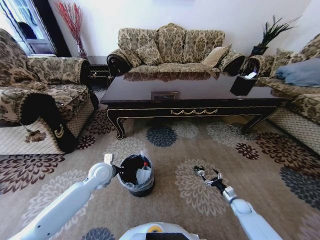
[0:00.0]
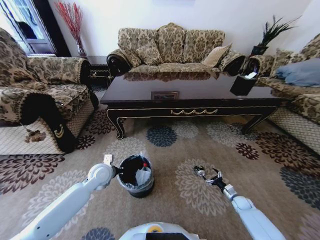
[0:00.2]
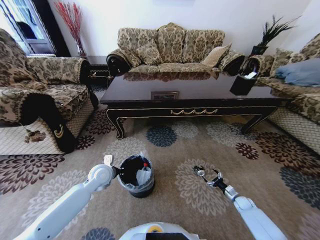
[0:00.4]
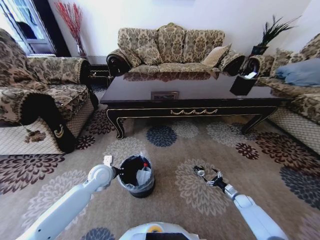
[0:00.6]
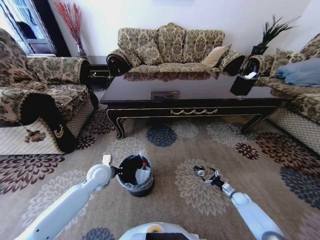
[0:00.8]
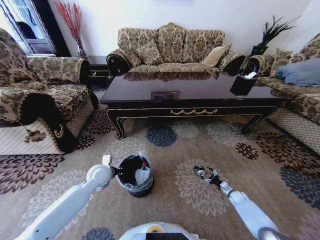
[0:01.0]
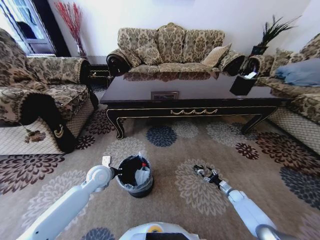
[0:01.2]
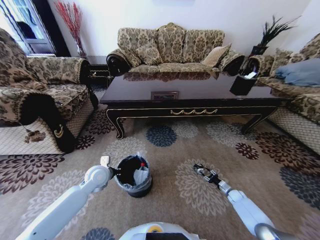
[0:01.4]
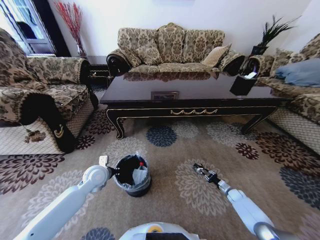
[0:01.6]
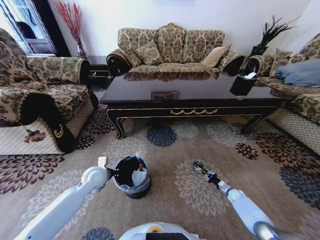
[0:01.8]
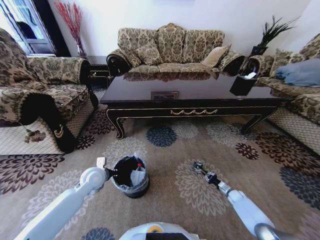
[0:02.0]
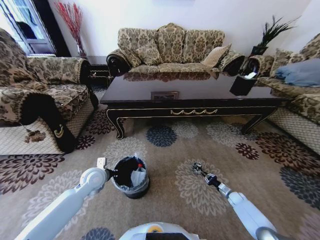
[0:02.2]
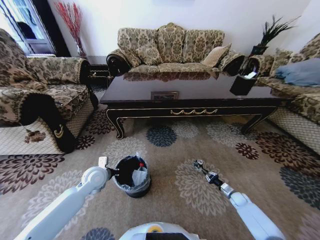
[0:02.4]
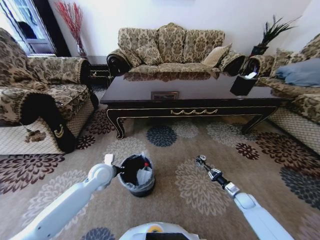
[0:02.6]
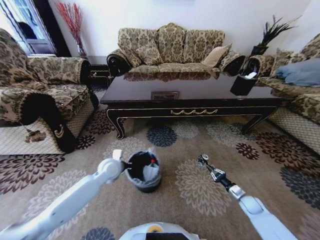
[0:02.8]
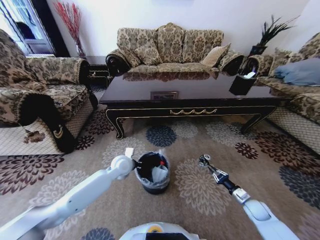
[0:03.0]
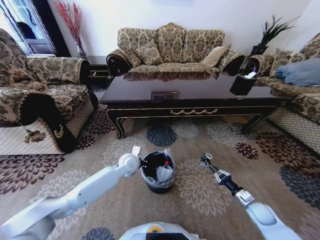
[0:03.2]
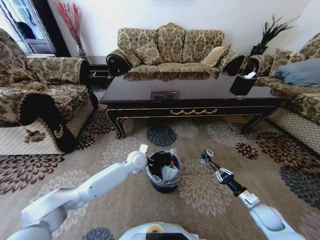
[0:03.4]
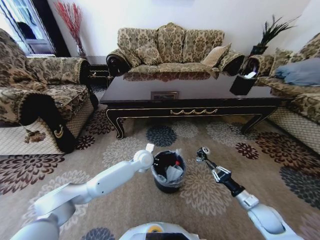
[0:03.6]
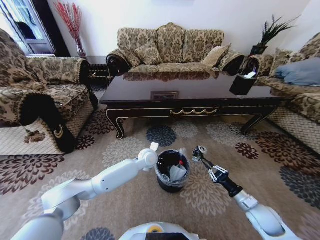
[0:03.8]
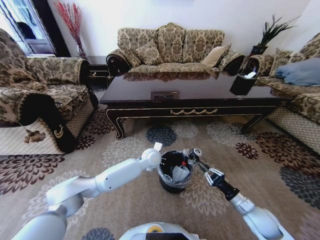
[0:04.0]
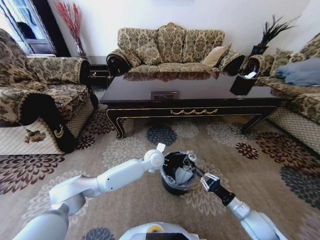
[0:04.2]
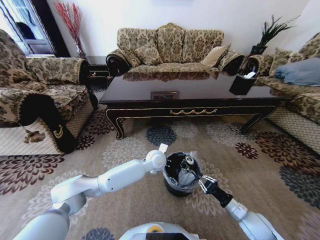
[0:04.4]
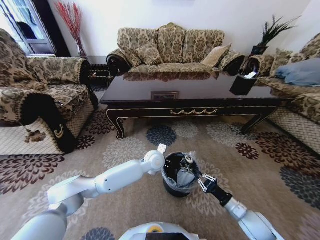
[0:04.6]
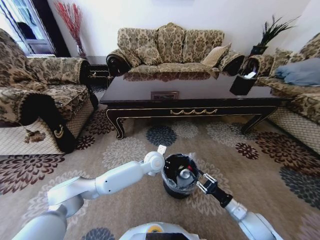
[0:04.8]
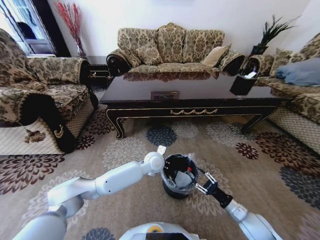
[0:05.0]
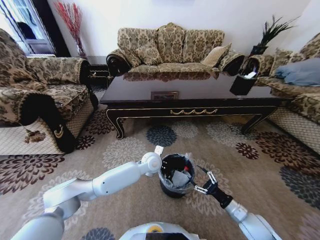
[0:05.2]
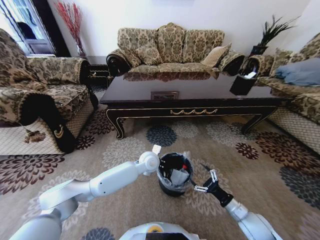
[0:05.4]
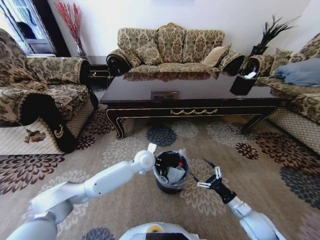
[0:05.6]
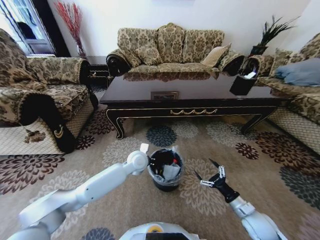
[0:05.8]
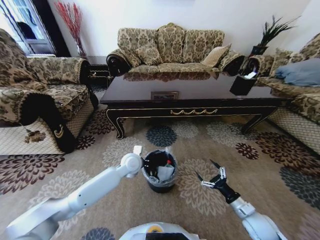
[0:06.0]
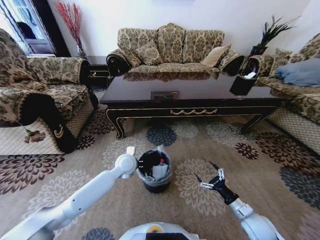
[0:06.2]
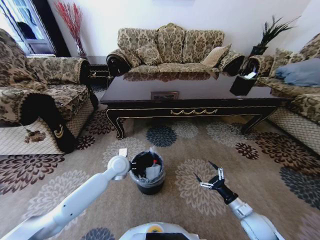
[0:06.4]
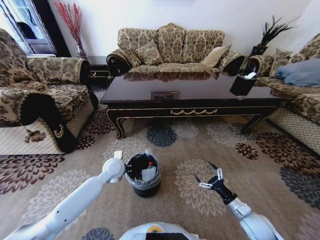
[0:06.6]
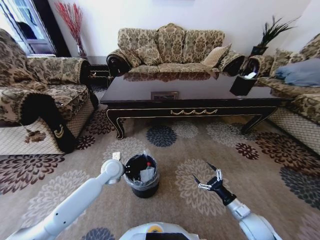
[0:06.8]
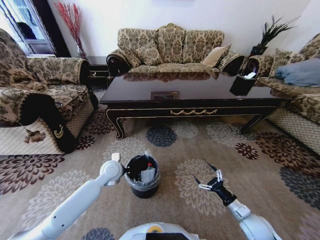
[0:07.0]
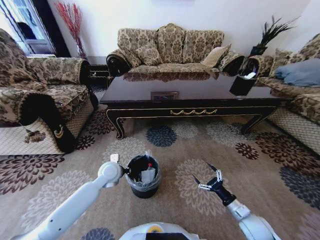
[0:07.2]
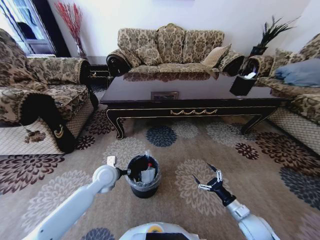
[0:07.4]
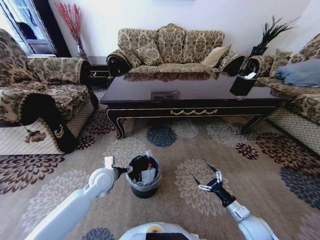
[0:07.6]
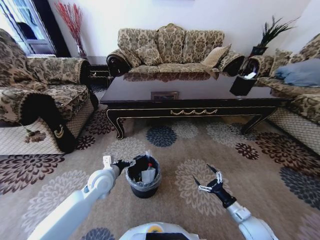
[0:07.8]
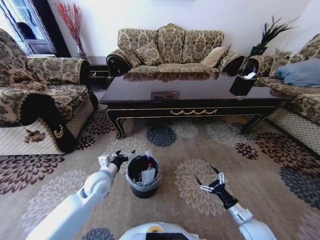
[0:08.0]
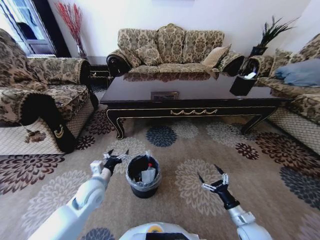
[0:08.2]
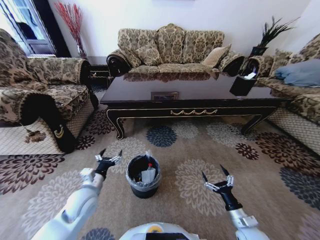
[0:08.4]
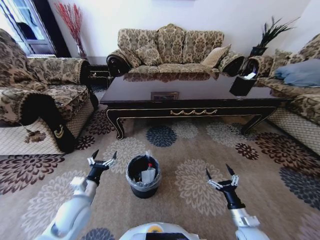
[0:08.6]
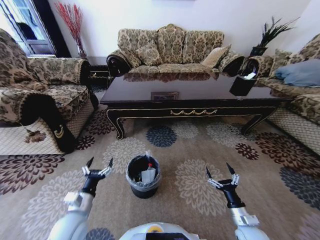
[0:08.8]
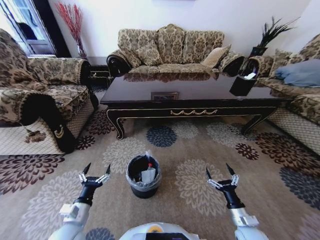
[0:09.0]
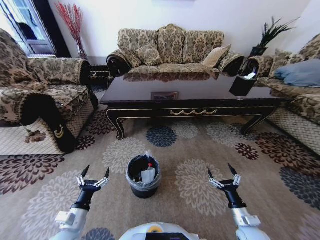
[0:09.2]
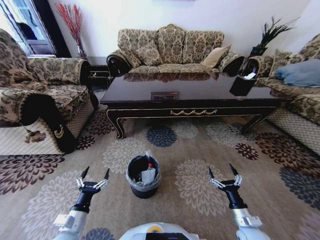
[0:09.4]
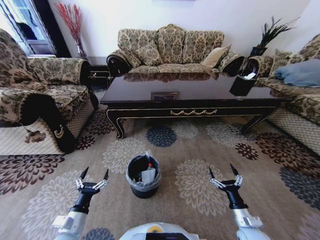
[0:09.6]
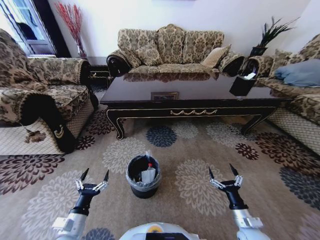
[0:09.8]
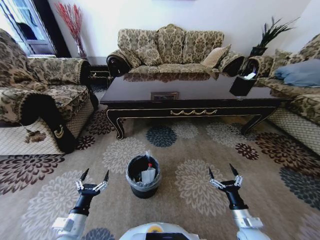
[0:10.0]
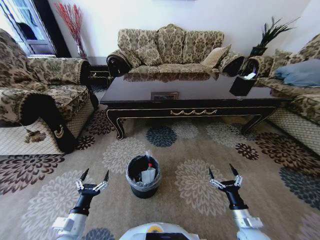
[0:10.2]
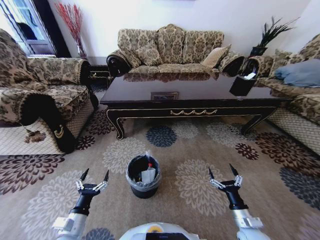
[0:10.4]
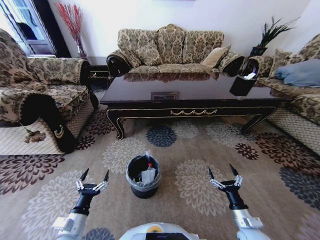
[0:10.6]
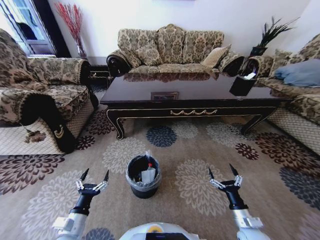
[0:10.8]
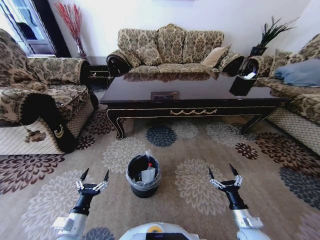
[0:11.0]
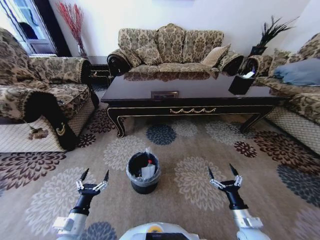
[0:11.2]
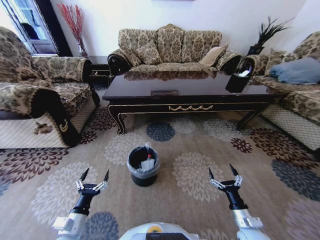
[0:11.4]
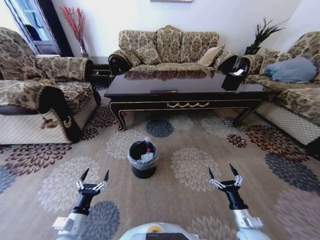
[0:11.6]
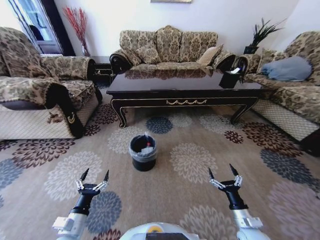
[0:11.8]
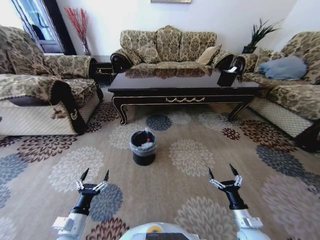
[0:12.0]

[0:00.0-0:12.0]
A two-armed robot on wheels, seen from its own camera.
Task of the whole recording: Move to the front of the table and pick up the trash from the floor, then place it into the trash bin.
0:00.0 to 0:01.6: The right gripper shifts some 5 cm forward, and closes.
0:01.6 to 0:03.0: The left gripper shifts about 10 cm to the right and forward. Meanwhile the right gripper goes approximately 15 cm upward and backward.
0:03.0 to 0:04.4: The left gripper moves to the right, approximately 15 cm, while the right gripper moves to the left, upward and backward, approximately 15 cm.
0:04.4 to 0:06.0: The right gripper opens its fingers. Meanwhile the left gripper travels to the left by approximately 10 cm.
0:06.0 to 0:07.6: The left gripper is displaced to the left and backward by roughly 15 cm, and opens up.
0:07.6 to 0:09.0: The left gripper moves backward, approximately 20 cm.
0:09.0 to 0:10.4: The grippers stay close to where they were, moving slightly.

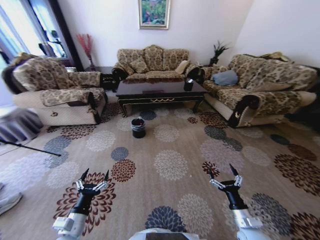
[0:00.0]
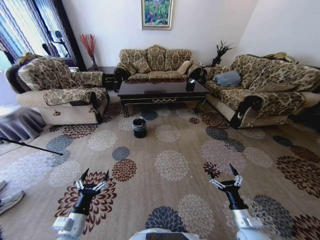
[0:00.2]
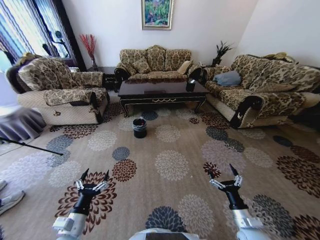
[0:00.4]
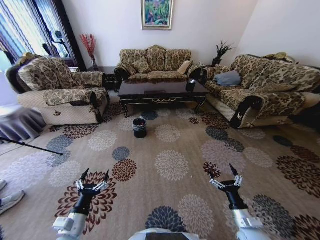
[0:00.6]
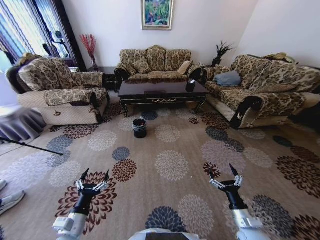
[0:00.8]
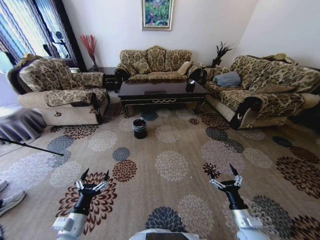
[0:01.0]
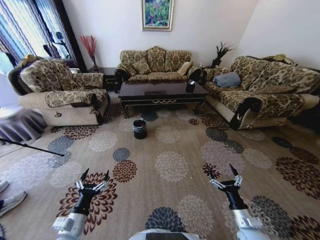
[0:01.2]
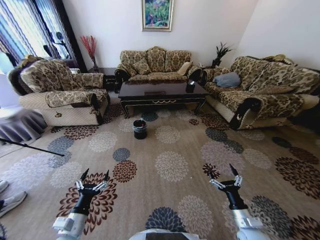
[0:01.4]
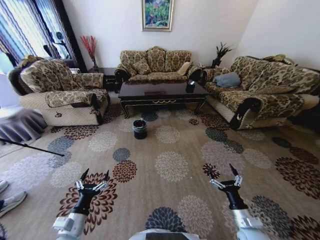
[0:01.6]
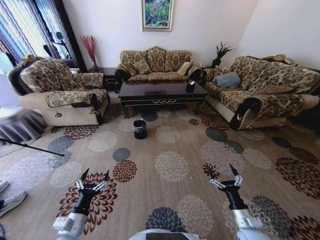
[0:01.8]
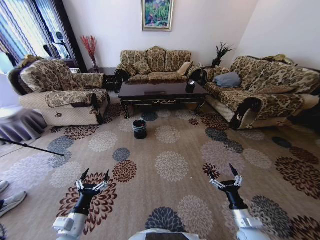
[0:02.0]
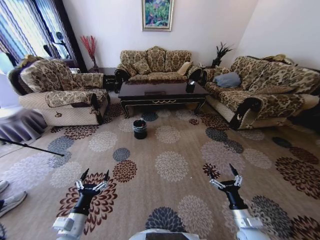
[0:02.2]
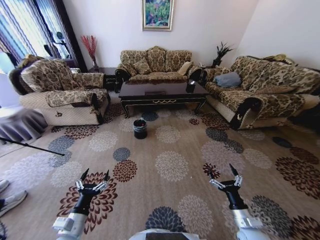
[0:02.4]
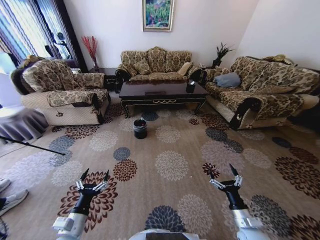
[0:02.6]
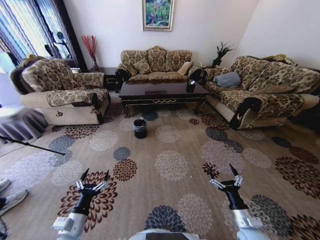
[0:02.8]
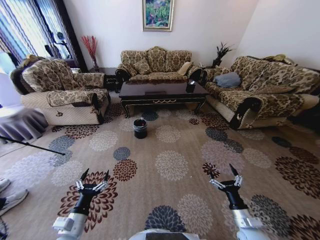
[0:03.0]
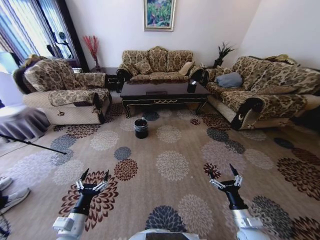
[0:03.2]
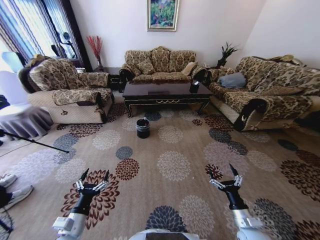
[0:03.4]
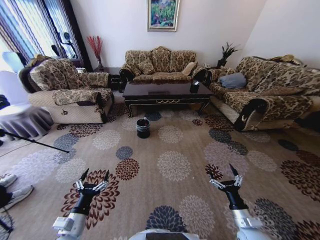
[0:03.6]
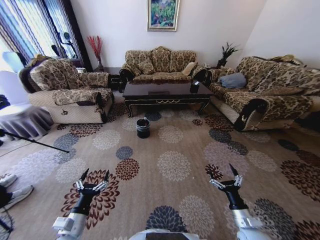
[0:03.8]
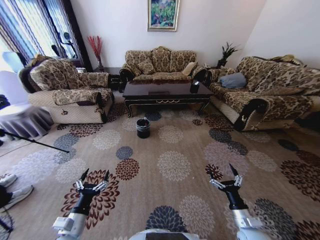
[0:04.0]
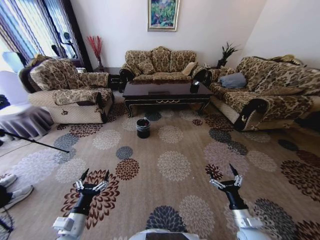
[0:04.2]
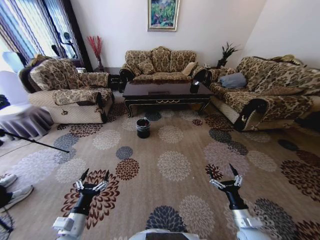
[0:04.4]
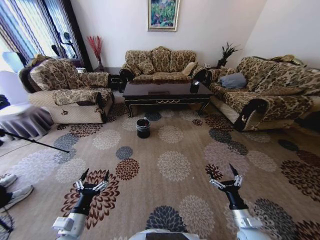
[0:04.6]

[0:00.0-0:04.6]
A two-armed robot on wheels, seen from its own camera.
Task of the whole recording: Move to the front of the table and pick up the trash from the floor, then place it into the trash bin.
0:01.6 to 0:03.0: Neither gripper changes place.
